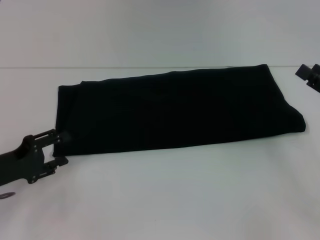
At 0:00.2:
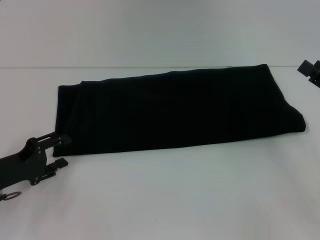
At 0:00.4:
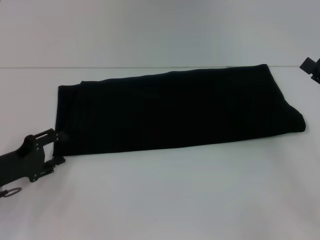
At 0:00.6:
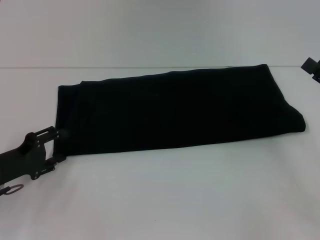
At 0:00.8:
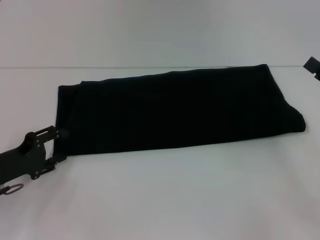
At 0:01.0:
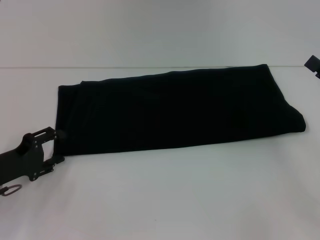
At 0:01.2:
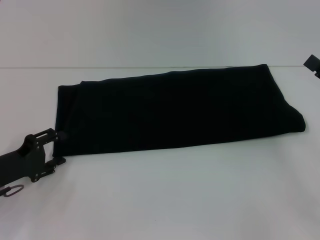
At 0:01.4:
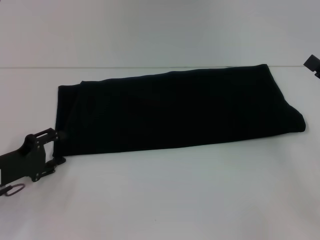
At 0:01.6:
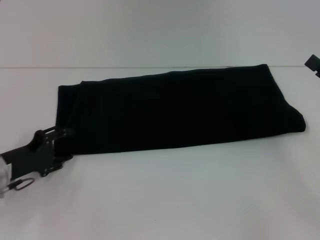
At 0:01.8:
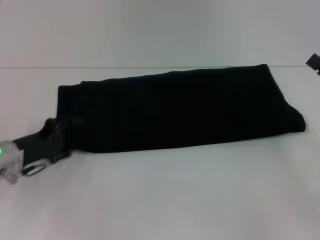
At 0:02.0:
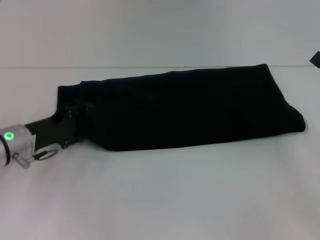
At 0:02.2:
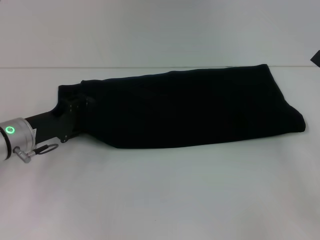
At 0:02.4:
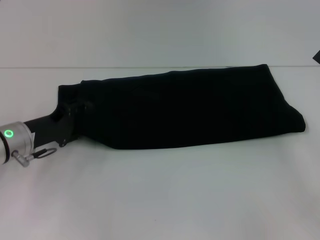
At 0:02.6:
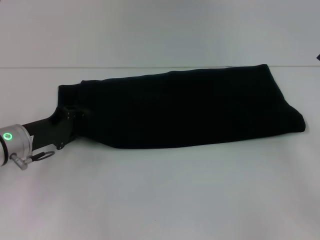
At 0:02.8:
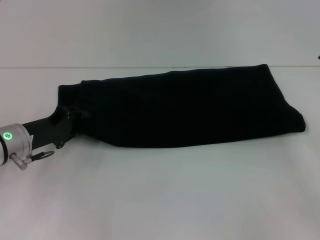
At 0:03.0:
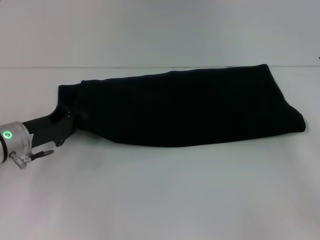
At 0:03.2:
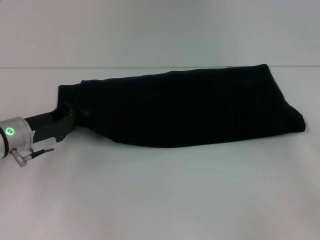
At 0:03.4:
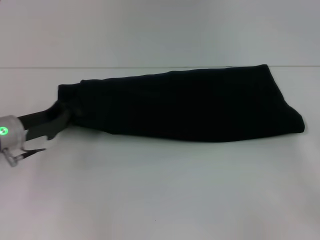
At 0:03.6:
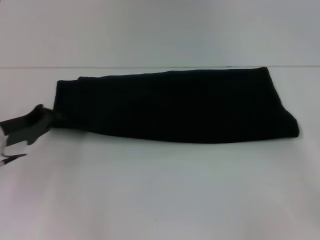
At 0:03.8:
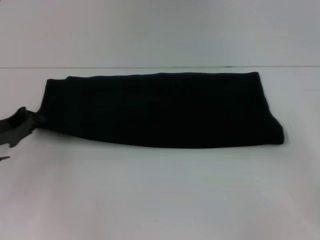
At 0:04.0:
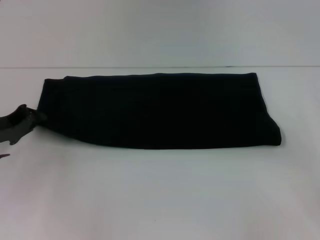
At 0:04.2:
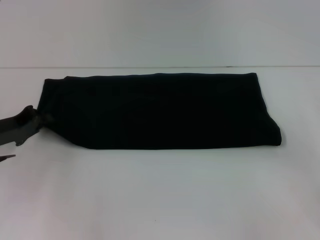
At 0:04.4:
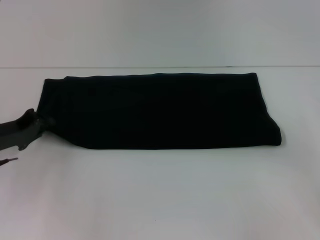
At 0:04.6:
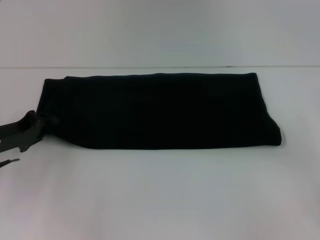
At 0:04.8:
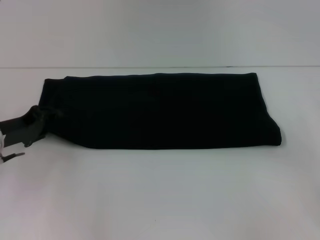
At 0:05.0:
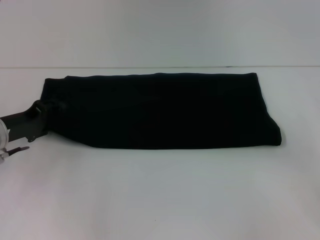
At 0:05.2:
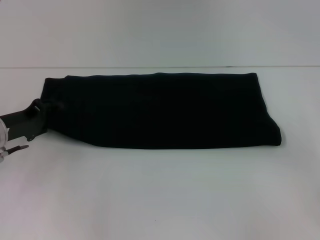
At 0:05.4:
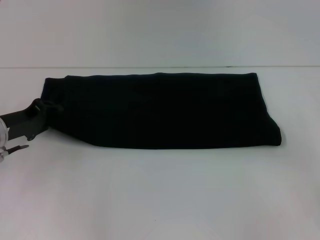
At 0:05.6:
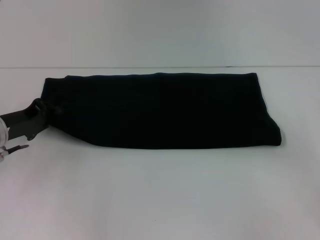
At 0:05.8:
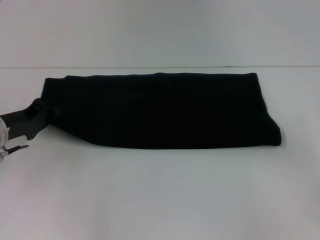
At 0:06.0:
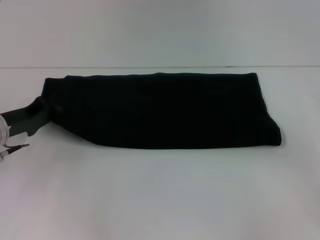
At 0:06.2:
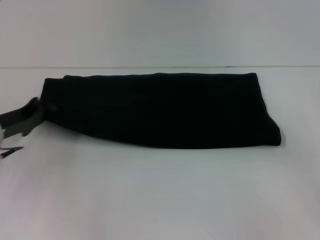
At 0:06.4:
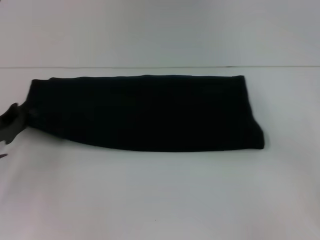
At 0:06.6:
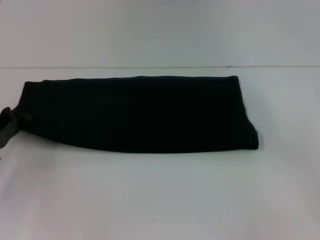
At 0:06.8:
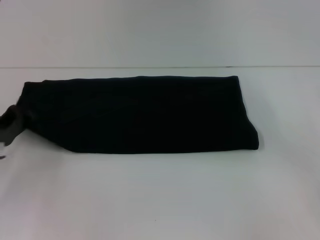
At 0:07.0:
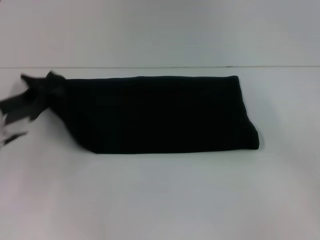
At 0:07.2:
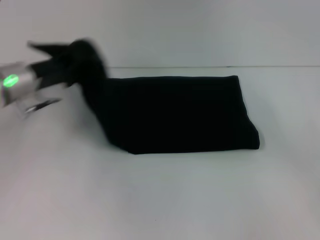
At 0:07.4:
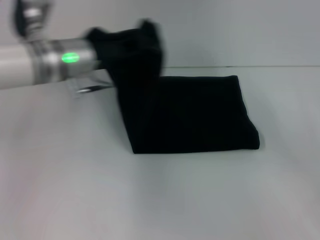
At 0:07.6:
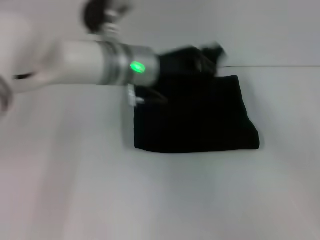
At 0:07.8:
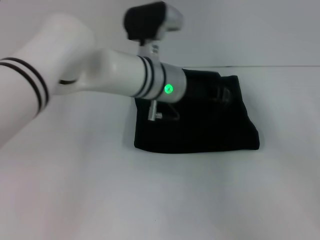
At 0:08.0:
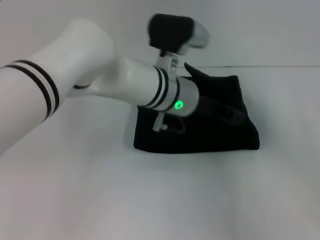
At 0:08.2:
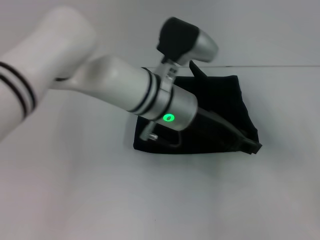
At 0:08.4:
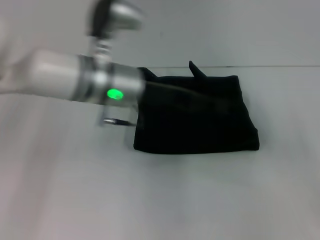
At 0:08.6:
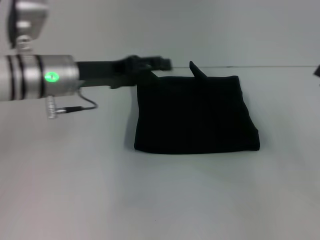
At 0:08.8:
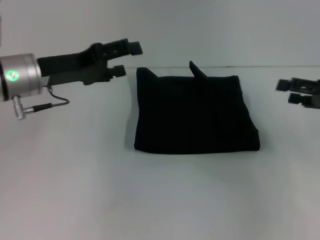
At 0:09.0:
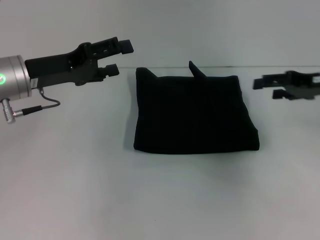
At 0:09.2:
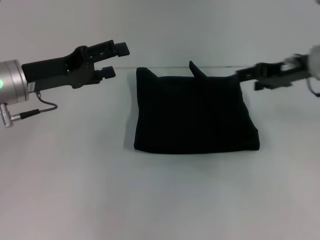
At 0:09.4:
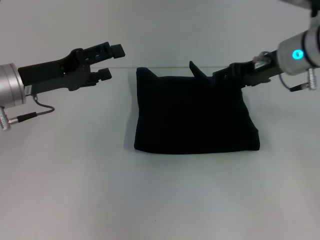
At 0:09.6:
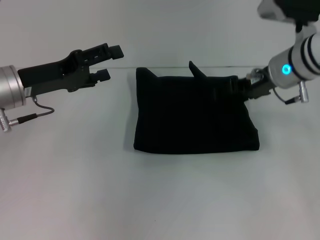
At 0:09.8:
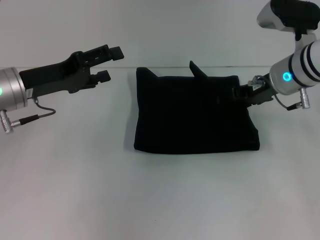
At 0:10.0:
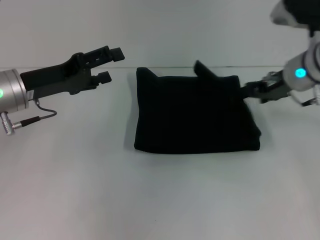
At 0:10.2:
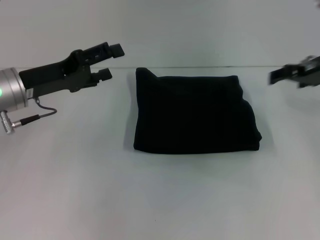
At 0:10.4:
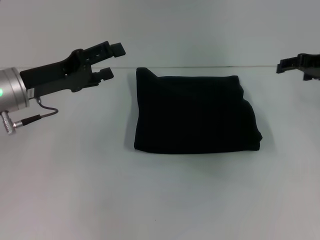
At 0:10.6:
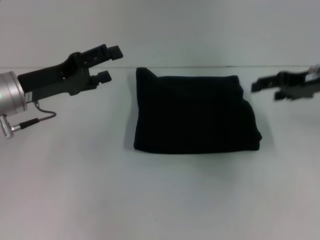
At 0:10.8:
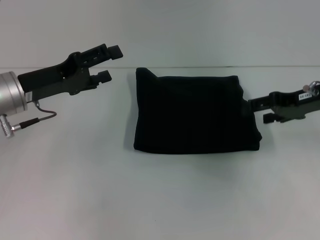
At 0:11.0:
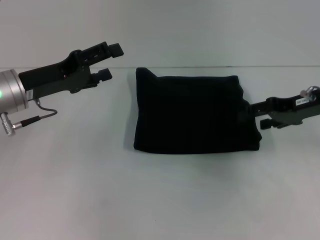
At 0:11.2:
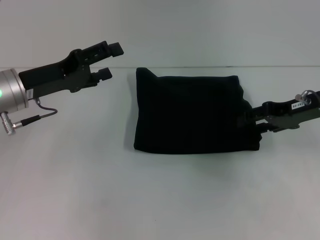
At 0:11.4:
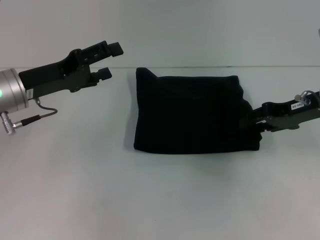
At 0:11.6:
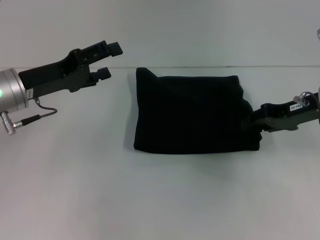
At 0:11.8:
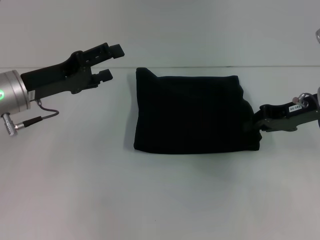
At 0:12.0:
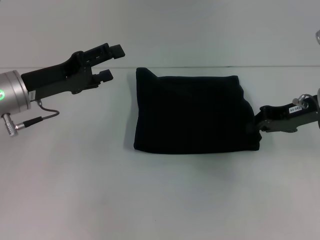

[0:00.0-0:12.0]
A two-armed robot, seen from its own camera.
Step, 0:00.0 to 0:08.2: Fold the clothes with your left hand.
0:00.0 to 0:01.6: The grippers move only a little.
0:01.6 to 0:03.0: The left gripper ends up some 5 cm from where it was, and closes up.
0:03.0 to 0:04.4: The left gripper moves about 5 cm.
0:04.4 to 0:06.0: The left gripper opens, then closes once more.
0:06.0 to 0:07.6: The left gripper heads to the right and upward, covering approximately 25 cm.
0:07.6 to 0:09.0: The left gripper travels to the left by approximately 15 cm, and opens; the right gripper shifts approximately 15 cm forward, to the left and upward.
0:09.0 to 0:10.4: The right gripper moves some 10 cm to the left and comes back.
0:10.4 to 0:12.0: The right gripper moves about 5 cm, and closes its fingers.

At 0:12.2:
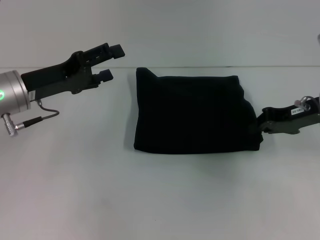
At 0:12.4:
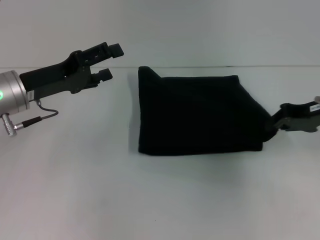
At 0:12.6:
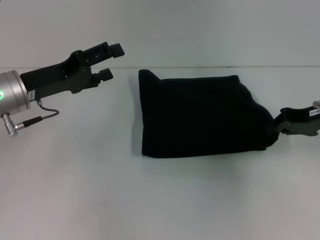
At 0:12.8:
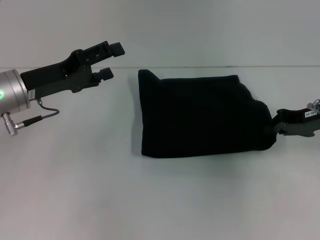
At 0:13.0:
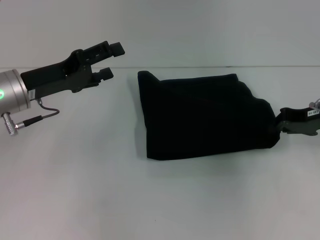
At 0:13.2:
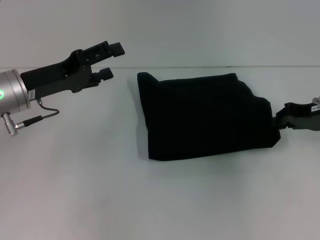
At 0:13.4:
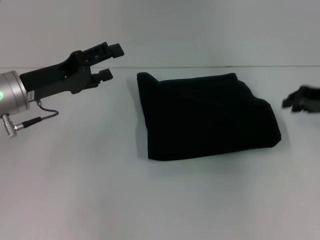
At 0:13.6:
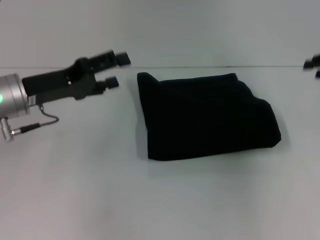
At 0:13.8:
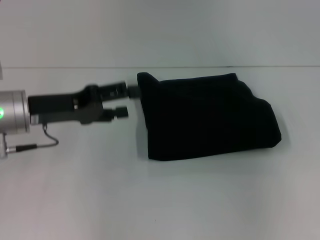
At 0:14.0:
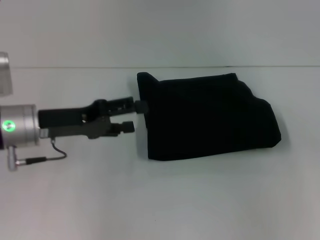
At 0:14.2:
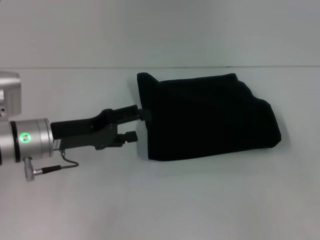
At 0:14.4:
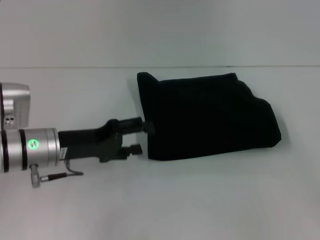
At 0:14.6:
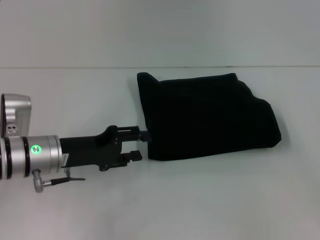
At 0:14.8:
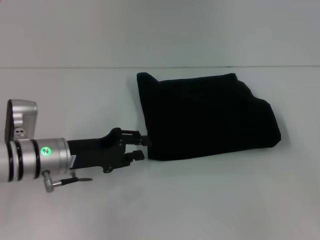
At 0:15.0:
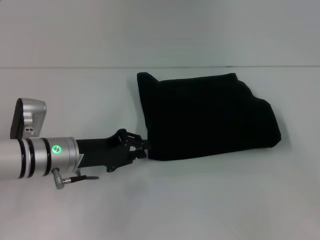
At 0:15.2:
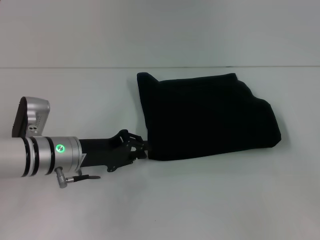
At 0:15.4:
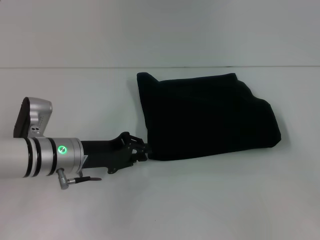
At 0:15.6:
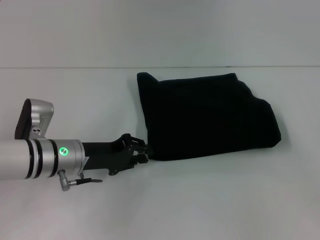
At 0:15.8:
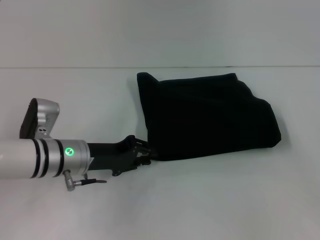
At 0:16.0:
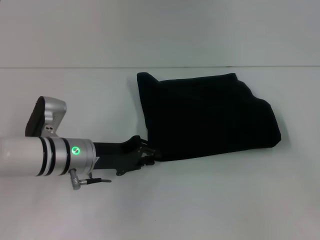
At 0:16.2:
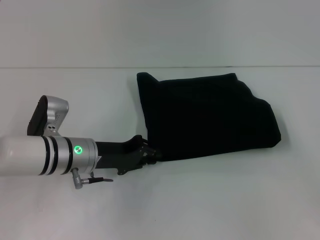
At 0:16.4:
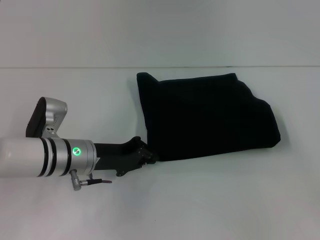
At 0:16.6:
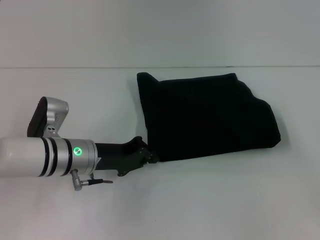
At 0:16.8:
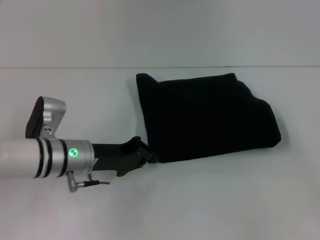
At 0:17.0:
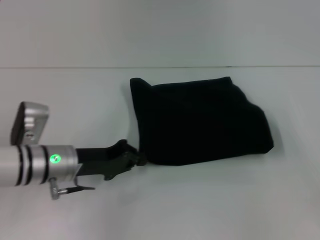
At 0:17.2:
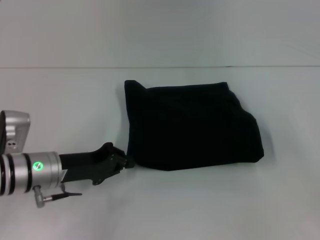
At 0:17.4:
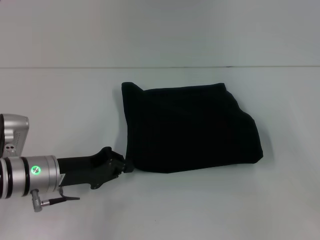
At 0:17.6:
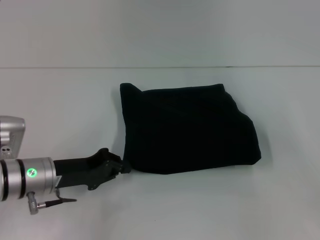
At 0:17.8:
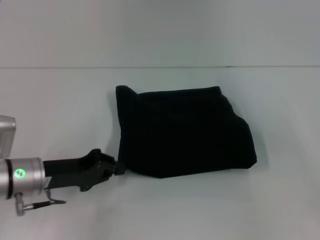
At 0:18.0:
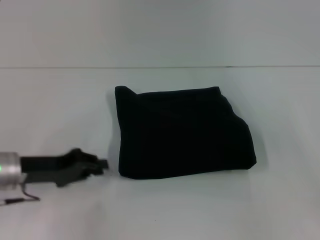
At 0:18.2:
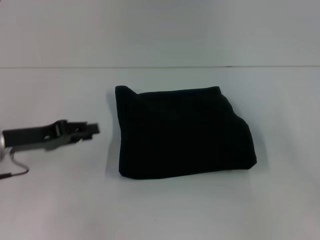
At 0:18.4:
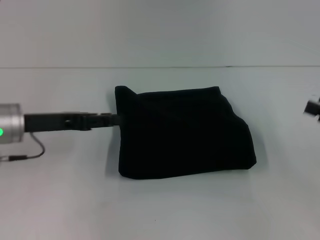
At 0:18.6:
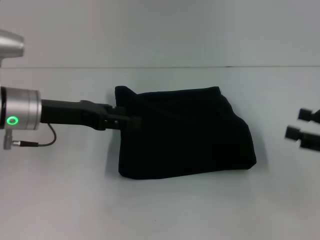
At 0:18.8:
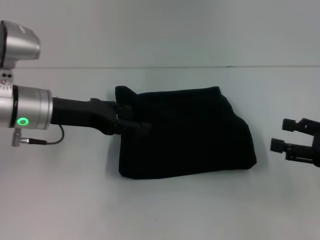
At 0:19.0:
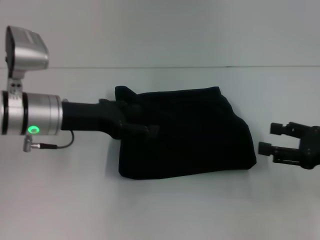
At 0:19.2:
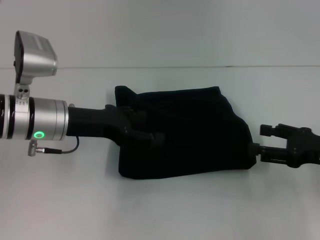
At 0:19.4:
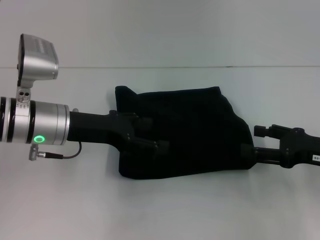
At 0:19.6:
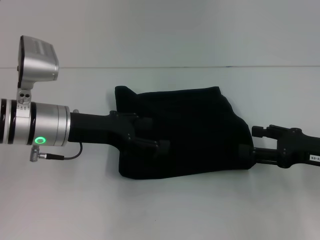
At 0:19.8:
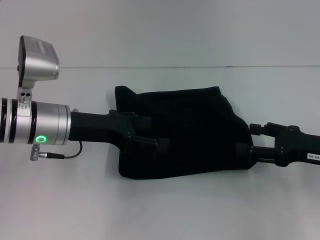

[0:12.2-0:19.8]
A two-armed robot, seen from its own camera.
0:12.2 to 0:13.8: The right gripper is displaced to the right and upward by roughly 15 cm, and opens.
0:13.8 to 0:15.2: The right gripper is displaced backward and downward by roughly 10 cm, and opens its fingers, while the left gripper moves downward, approximately 10 cm, and closes its fingers.
0:15.2 to 0:16.8: The grippers stay close to where they were, moving slightly.
0:16.8 to 0:18.2: The left gripper travels to the left and upward by roughly 10 cm.
0:18.2 to 0:19.8: The left gripper shifts approximately 10 cm to the right, and opens, while the right gripper goes about 10 cm to the left.
